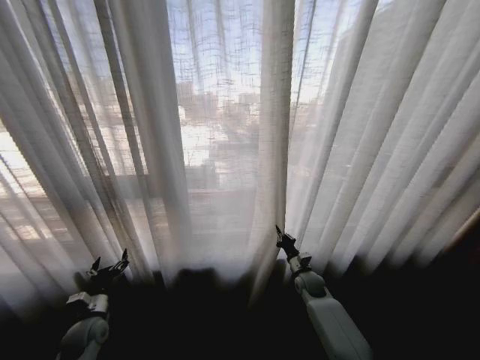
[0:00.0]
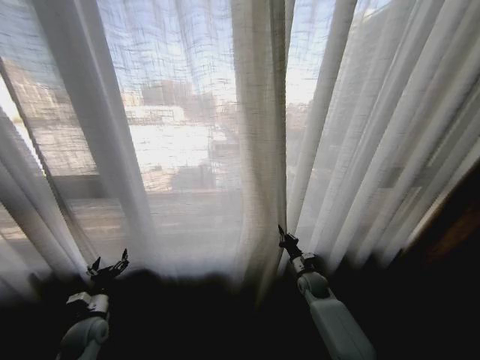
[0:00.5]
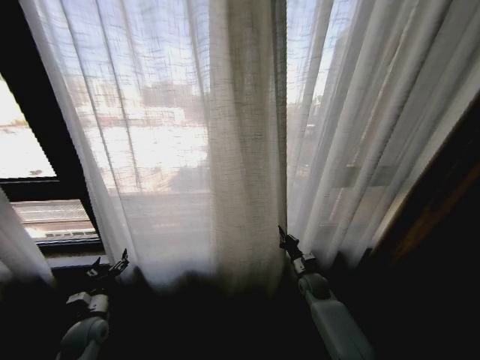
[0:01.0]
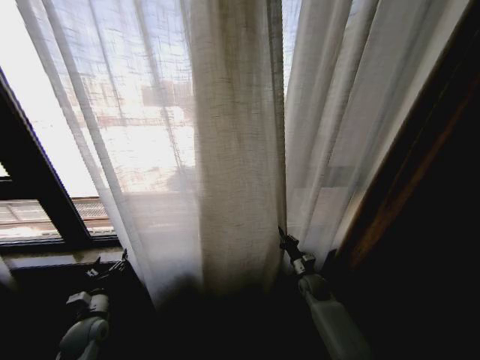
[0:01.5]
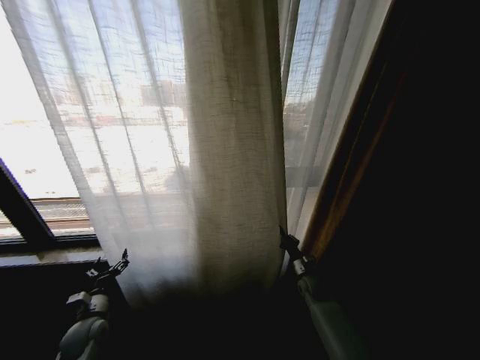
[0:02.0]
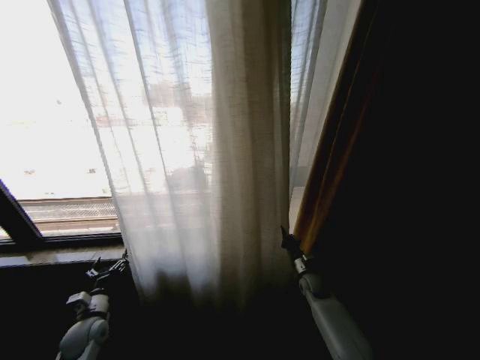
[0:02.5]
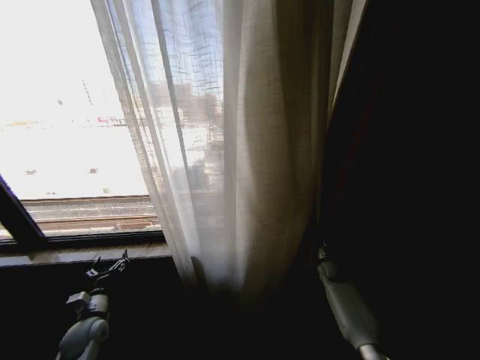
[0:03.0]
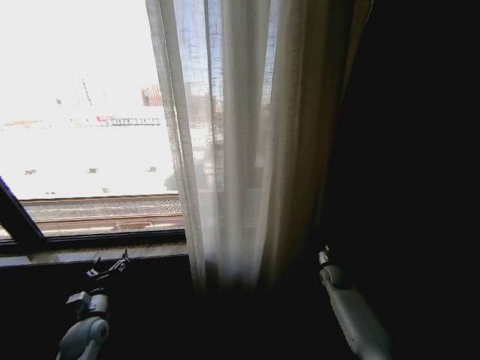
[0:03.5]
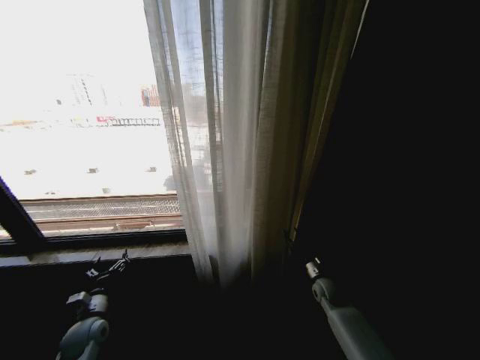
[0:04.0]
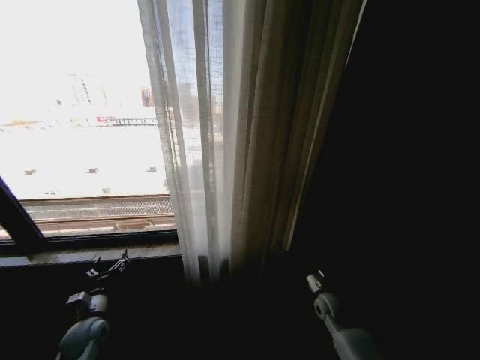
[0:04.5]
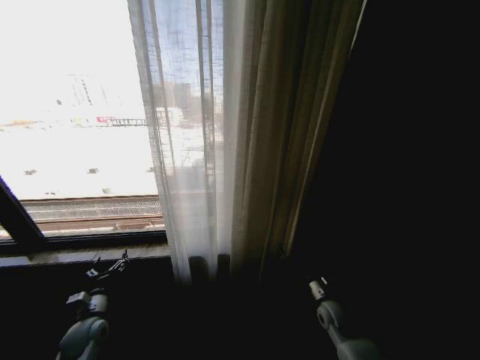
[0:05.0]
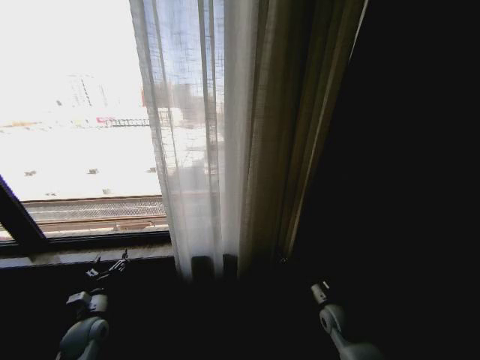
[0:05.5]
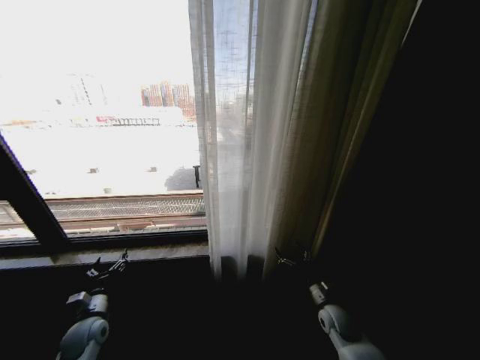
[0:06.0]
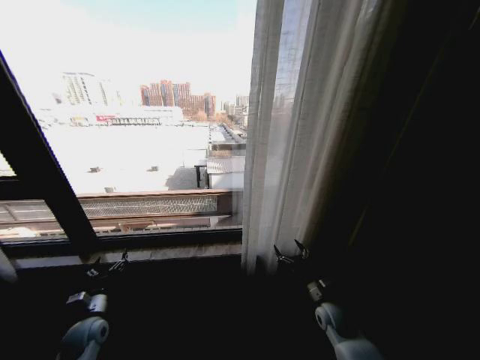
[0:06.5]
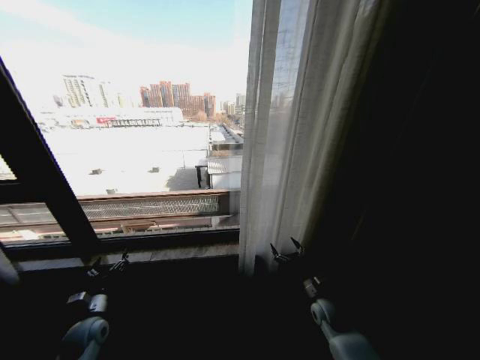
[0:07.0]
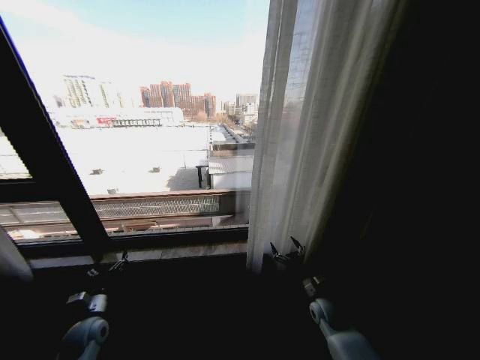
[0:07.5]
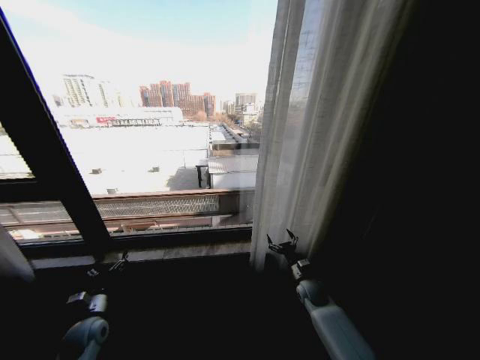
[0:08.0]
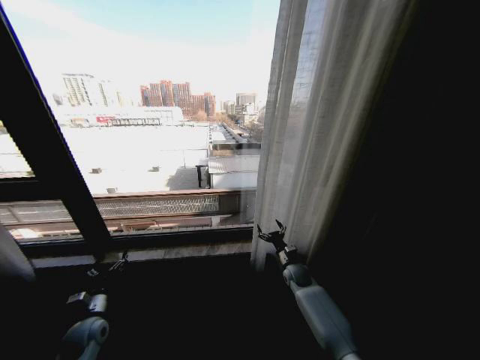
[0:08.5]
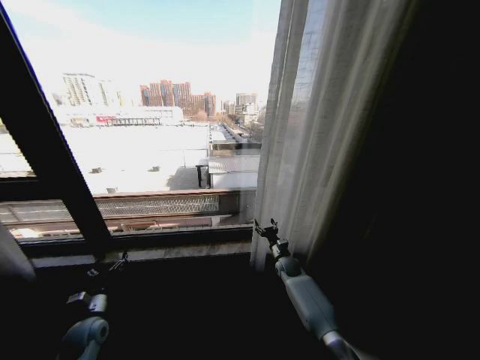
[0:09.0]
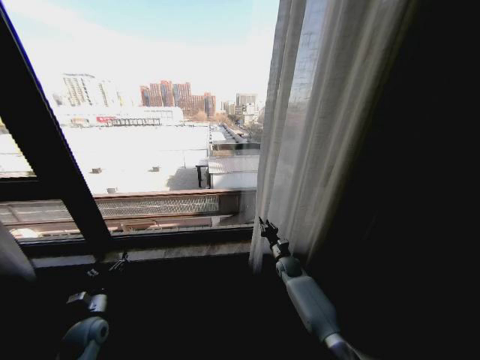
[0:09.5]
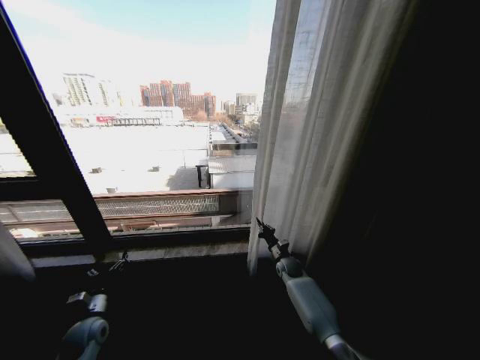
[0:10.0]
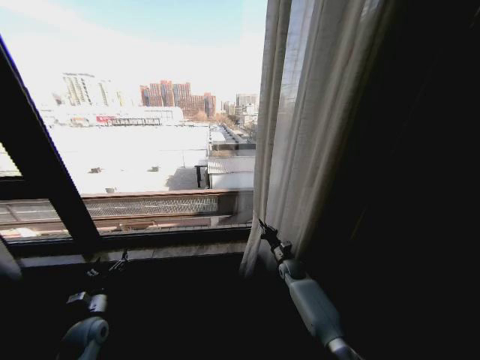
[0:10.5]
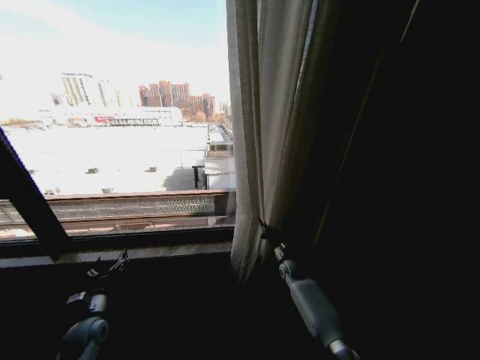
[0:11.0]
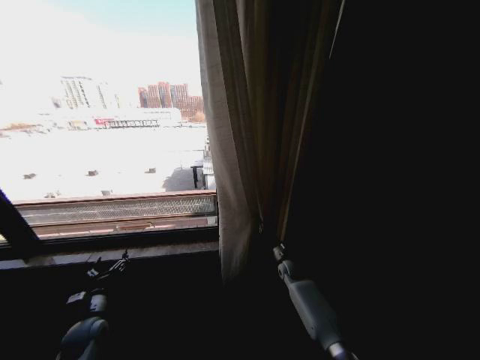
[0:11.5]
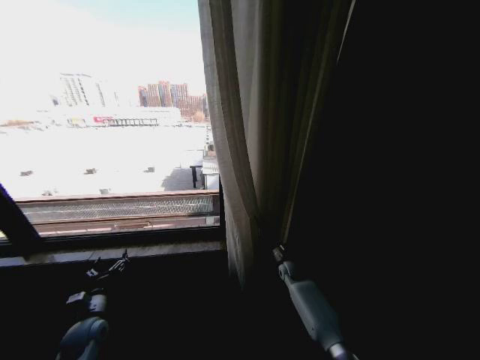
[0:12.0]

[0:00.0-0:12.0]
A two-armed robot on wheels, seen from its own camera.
Task of the whole recording: Open the curtains by pulling them apart, changing their state from closed to fully open.
0:02.0 to 0:04.0: The right gripper opens.
0:04.0 to 0:06.0: The right gripper travels backward by some 10 cm, and opens.
0:06.0 to 0:08.0: The right gripper moves forward, approximately 10 cm.
0:08.0 to 0:10.0: The right gripper goes some 10 cm forward and to the left, and closes up.

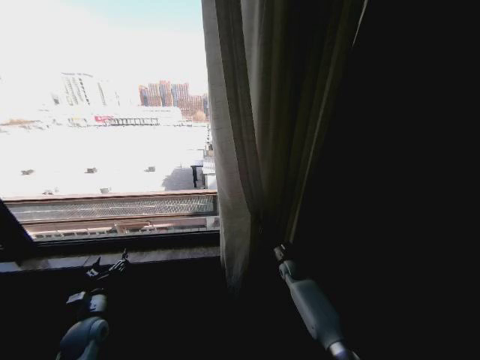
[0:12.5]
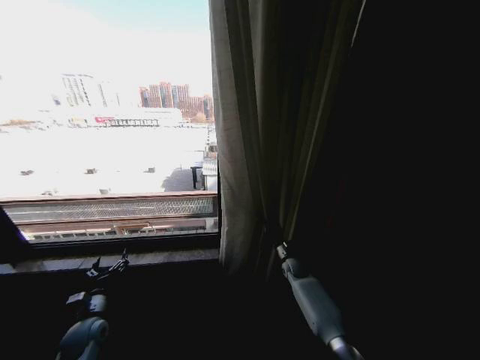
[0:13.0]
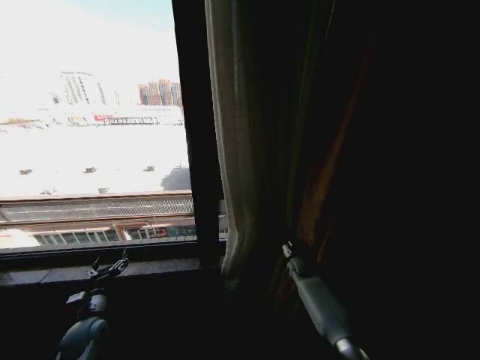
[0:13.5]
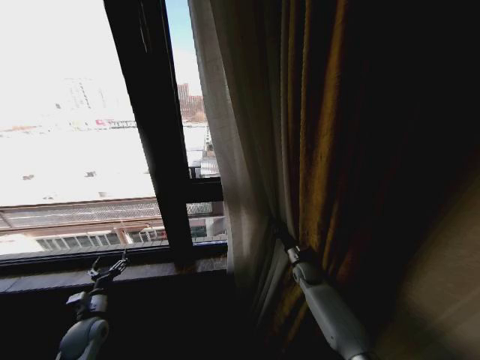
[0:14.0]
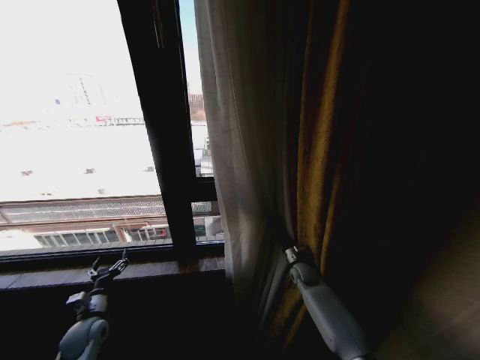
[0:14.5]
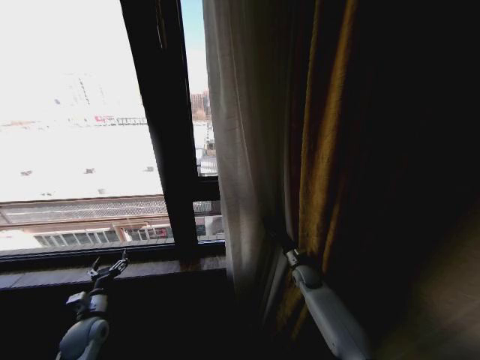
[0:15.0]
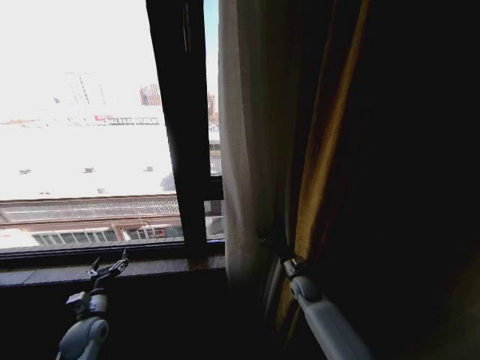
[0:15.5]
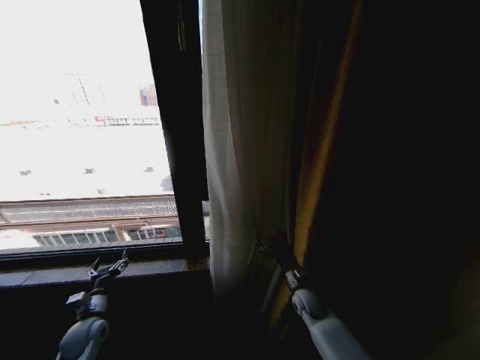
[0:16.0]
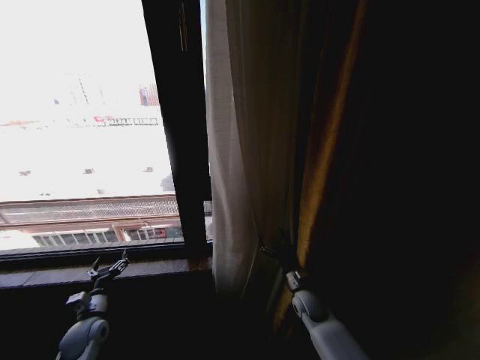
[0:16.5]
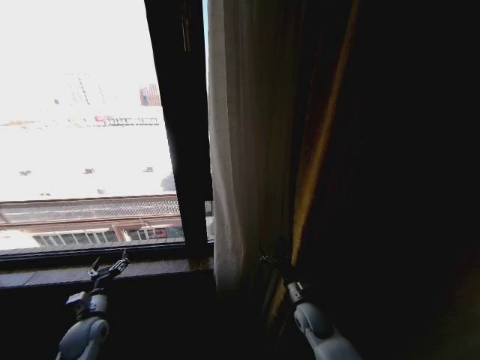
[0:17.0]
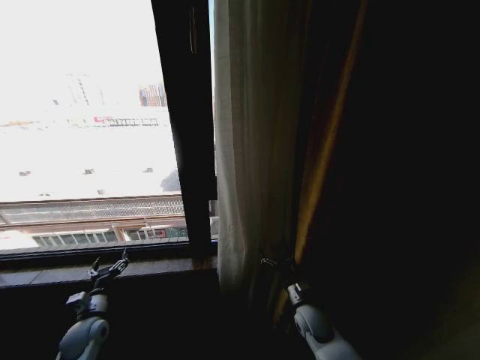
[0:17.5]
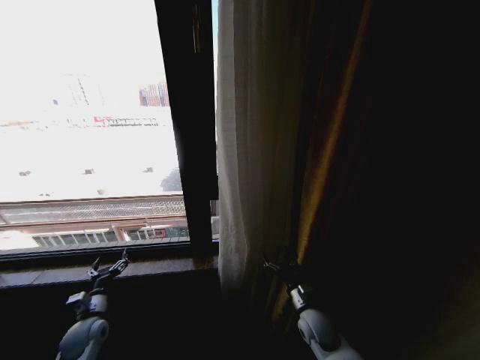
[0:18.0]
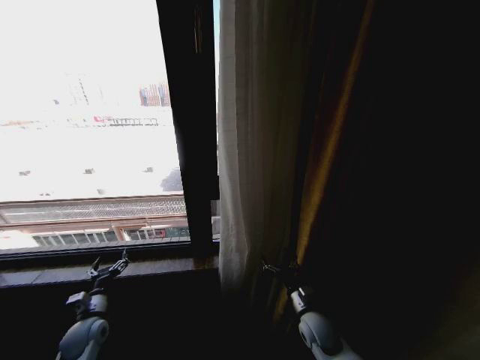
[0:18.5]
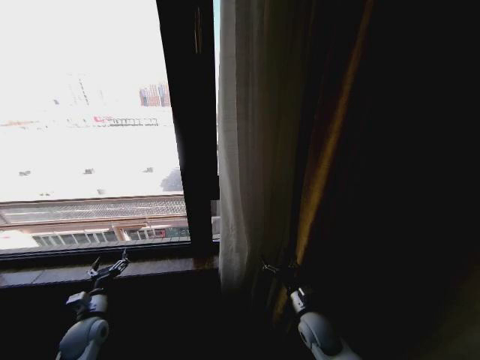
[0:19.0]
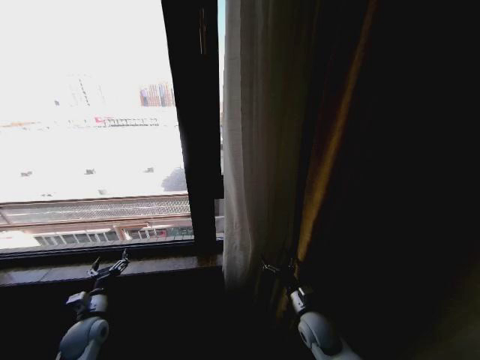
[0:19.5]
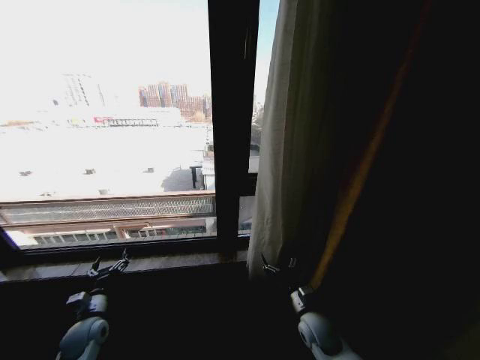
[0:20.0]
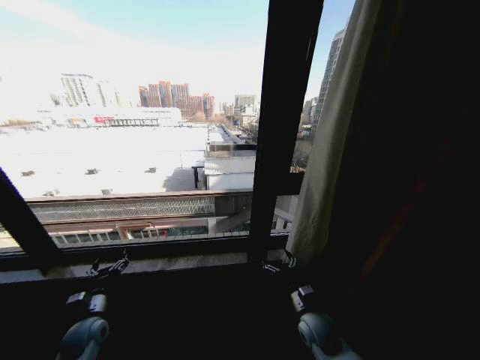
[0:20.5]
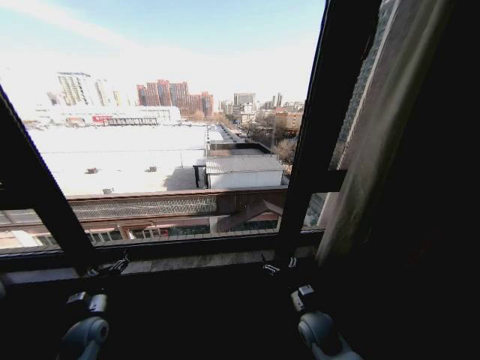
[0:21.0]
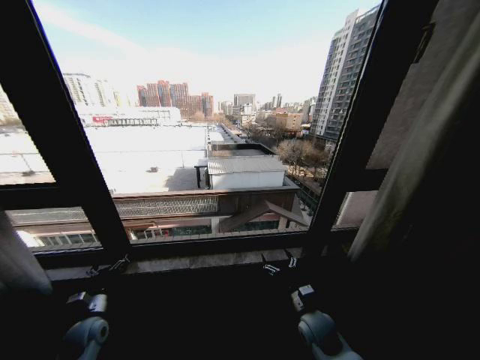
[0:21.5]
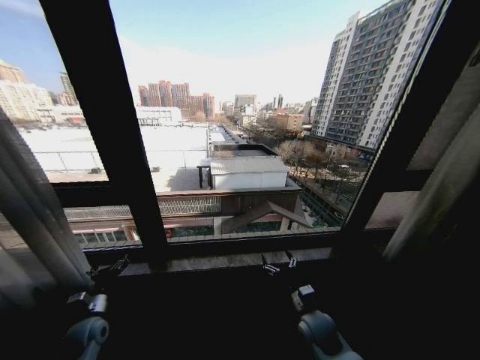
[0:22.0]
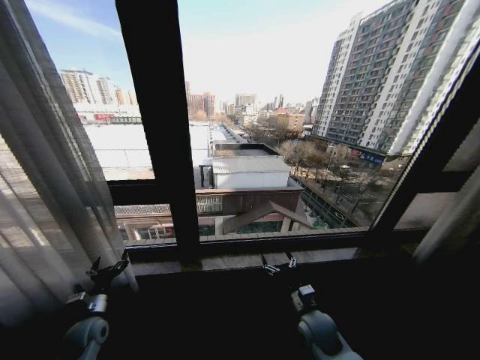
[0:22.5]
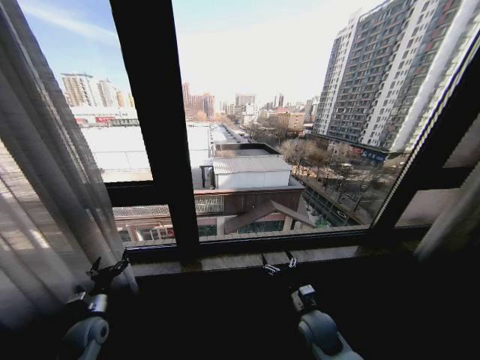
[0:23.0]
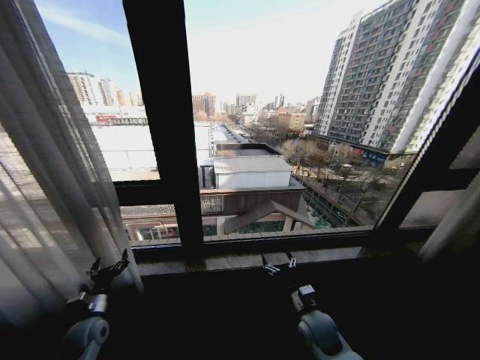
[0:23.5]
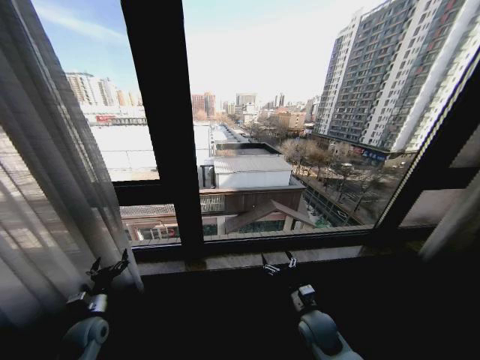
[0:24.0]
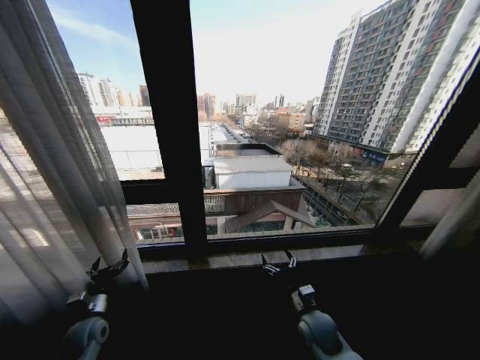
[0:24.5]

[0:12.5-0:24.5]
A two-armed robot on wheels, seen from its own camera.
Task of the whole recording: Open the curtains by pulling them apart, changing their state from closed to fully open.
0:14.5 to 0:16.5: The right gripper heads backward, covering about 10 cm, and opens.
0:16.5 to 0:18.5: The right gripper shifts some 10 cm backward.
0:22.5 to 0:24.5: Both grippers stay about where they are.

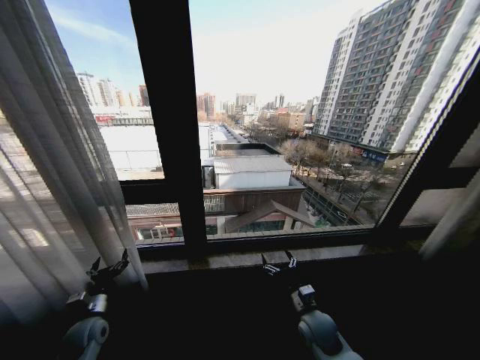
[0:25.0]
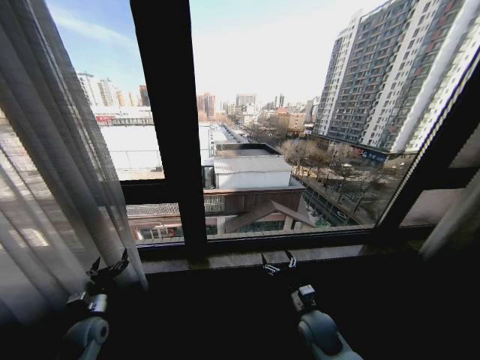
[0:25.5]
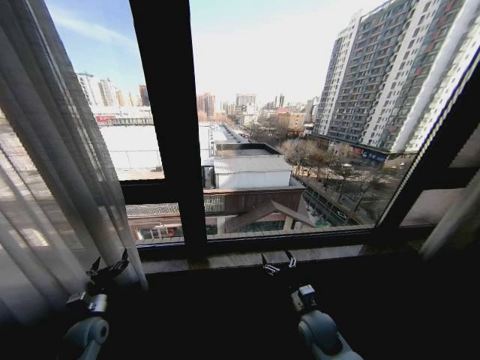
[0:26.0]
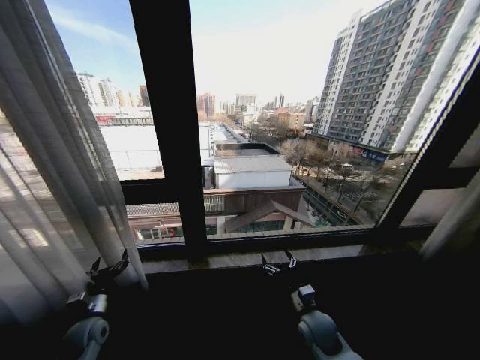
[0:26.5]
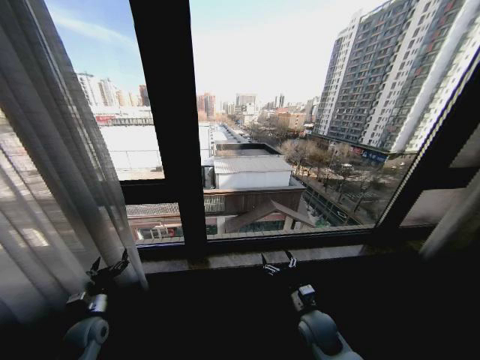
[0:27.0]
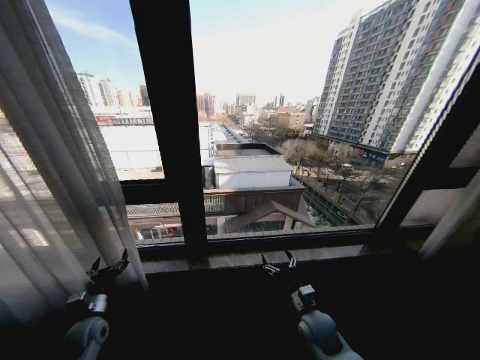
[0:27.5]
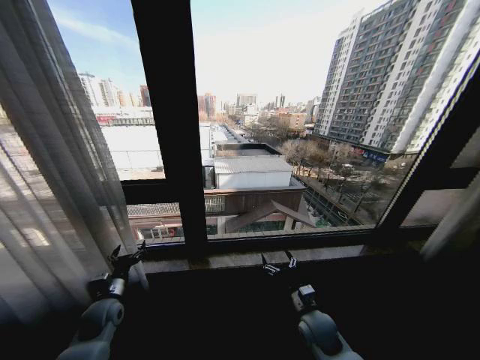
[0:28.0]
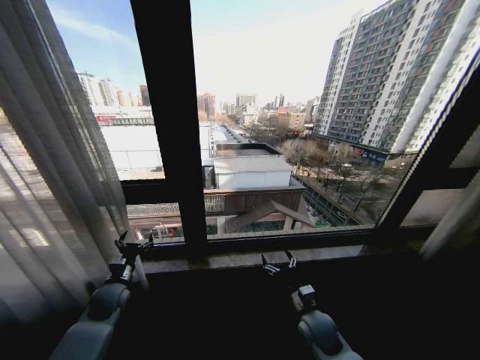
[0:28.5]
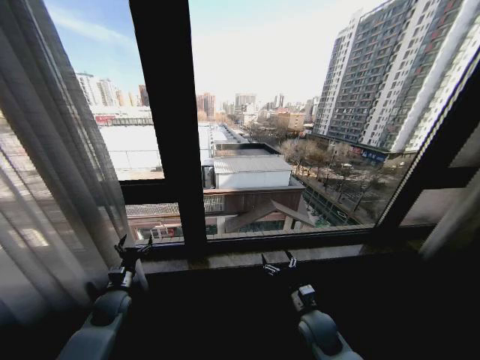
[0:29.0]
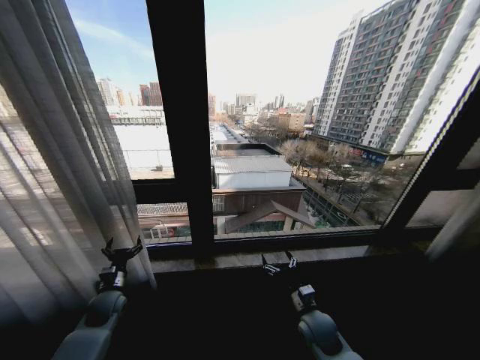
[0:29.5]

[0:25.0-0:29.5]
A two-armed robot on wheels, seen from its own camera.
Task of the whole recording: Open the curtains by pulling them apart, changing their state from closed to fully open.
0:25.0 to 0:27.0: The two grippers keep their place.
0:27.0 to 0:29.5: The left gripper shifts some 5 cm forward.
